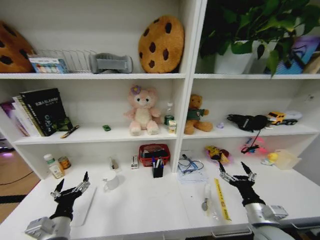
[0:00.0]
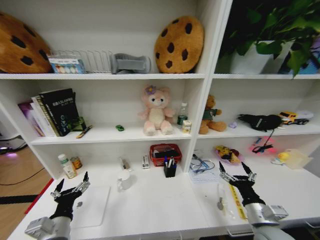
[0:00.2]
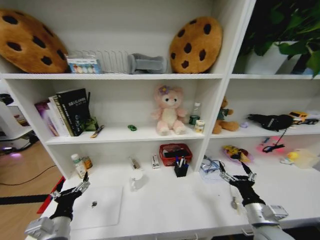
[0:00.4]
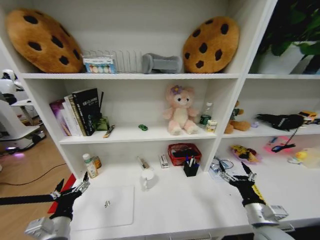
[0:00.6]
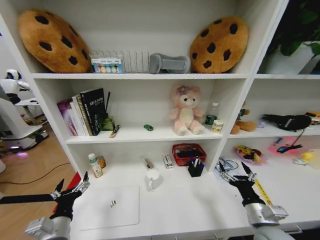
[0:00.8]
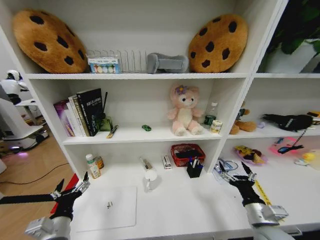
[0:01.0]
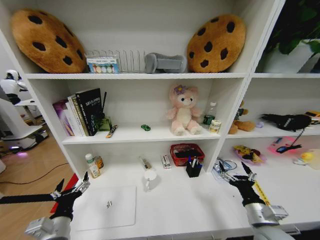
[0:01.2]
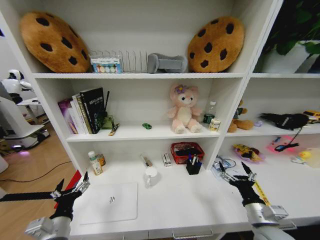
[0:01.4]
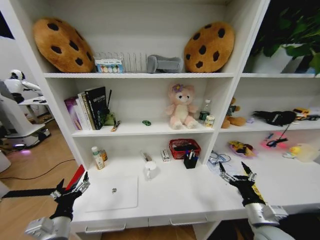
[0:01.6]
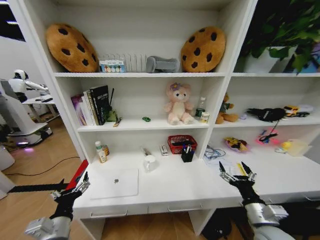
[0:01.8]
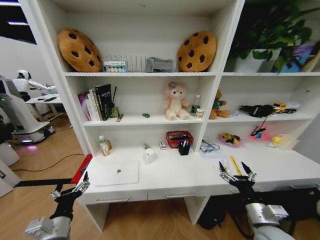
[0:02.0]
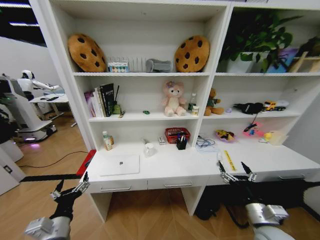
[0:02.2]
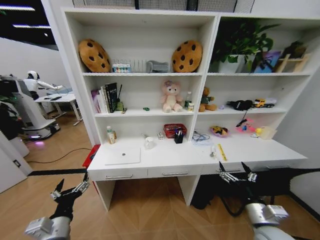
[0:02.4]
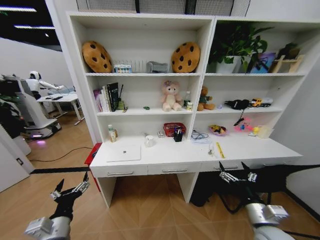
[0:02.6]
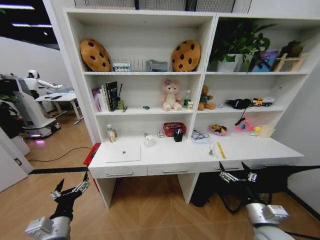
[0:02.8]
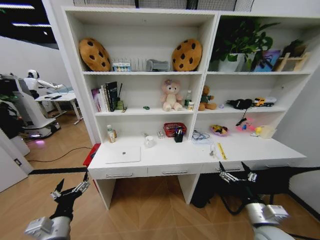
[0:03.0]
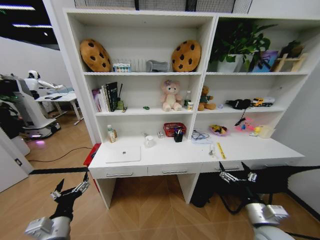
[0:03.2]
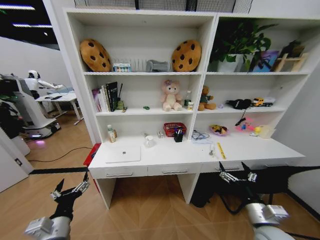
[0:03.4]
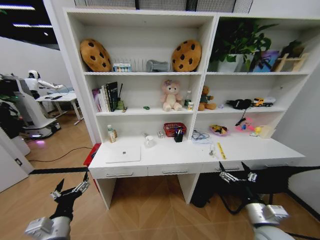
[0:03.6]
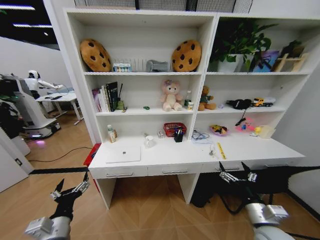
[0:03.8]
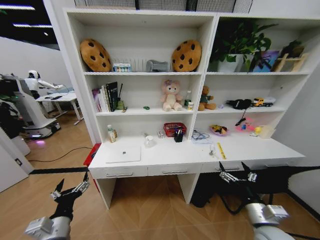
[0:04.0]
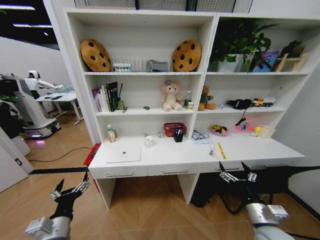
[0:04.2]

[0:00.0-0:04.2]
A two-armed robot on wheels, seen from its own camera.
Task of the whole recording: Organize the objects on the table.
0:02.8 to 0:04.2: Neither gripper changes place.
